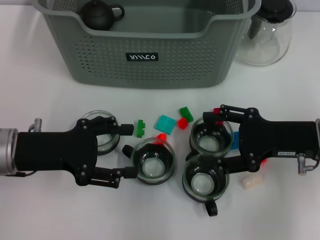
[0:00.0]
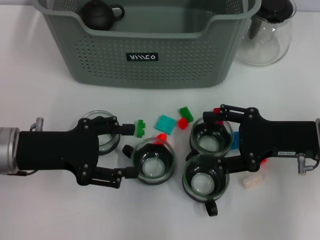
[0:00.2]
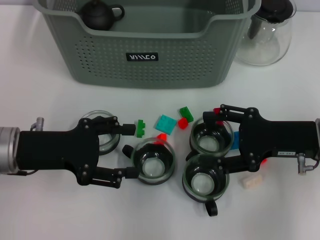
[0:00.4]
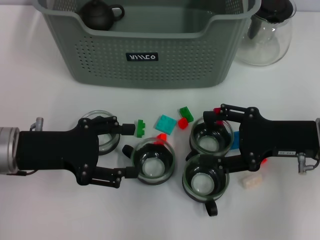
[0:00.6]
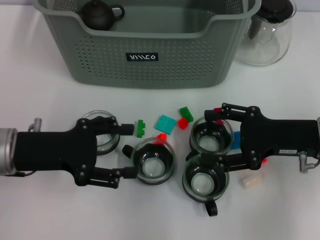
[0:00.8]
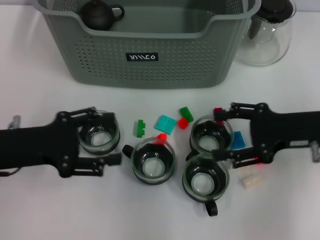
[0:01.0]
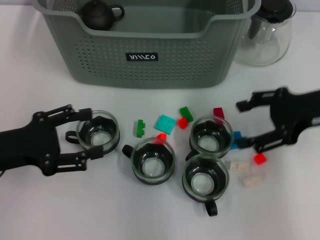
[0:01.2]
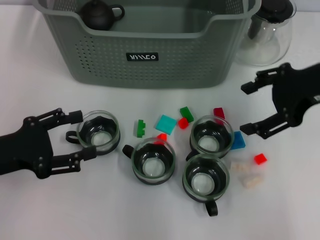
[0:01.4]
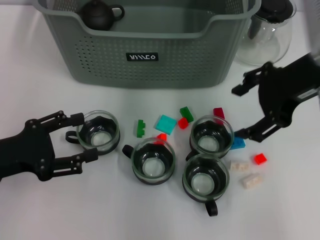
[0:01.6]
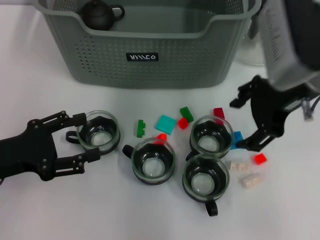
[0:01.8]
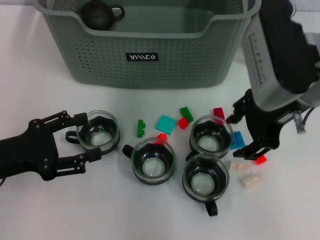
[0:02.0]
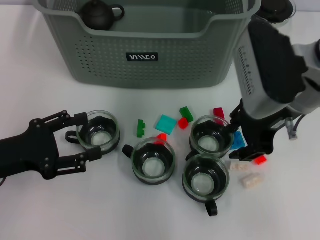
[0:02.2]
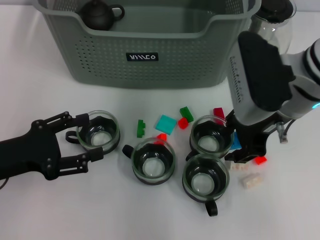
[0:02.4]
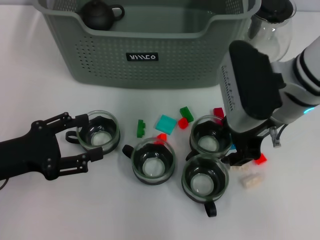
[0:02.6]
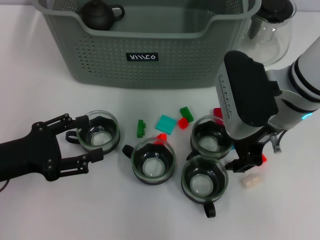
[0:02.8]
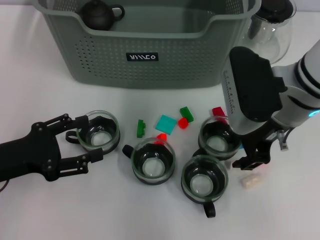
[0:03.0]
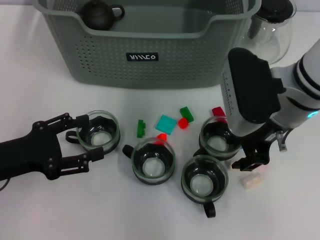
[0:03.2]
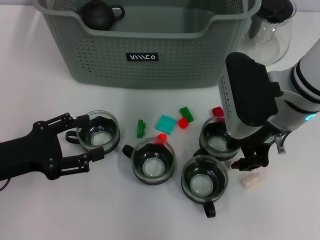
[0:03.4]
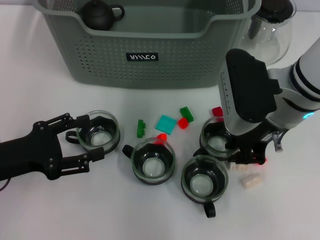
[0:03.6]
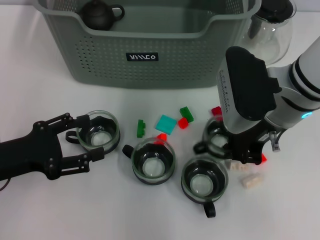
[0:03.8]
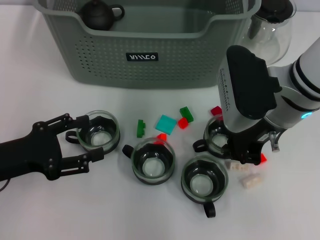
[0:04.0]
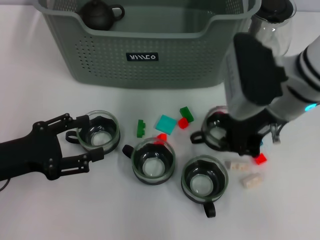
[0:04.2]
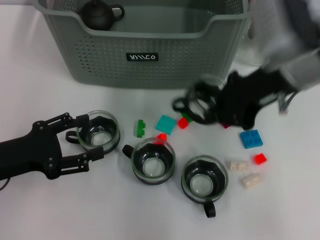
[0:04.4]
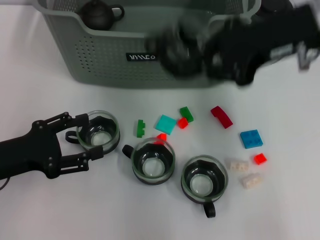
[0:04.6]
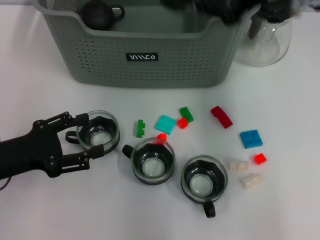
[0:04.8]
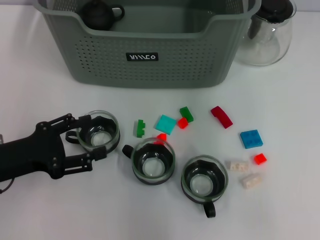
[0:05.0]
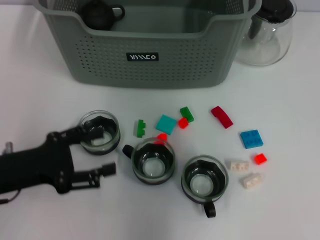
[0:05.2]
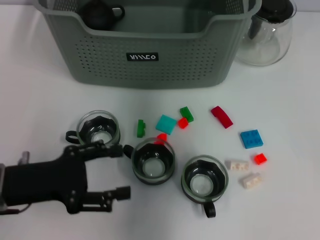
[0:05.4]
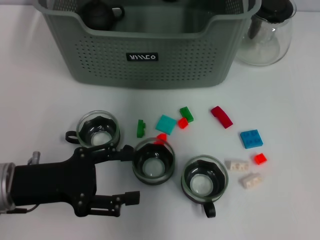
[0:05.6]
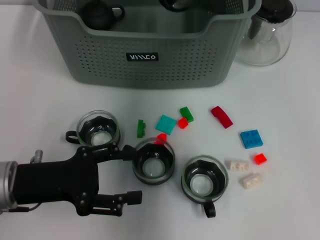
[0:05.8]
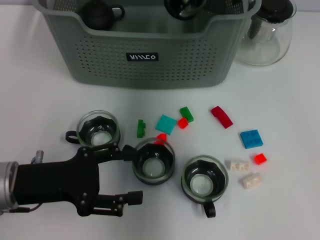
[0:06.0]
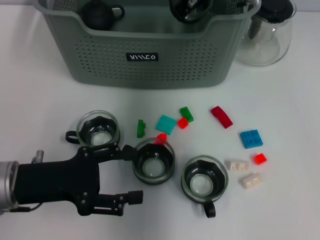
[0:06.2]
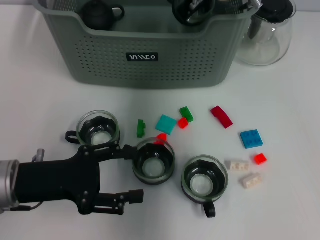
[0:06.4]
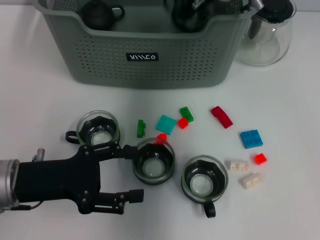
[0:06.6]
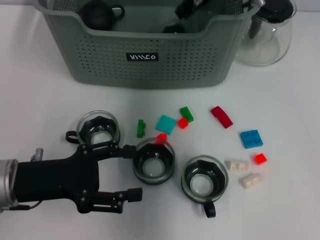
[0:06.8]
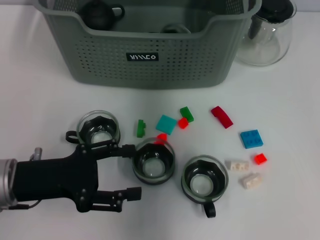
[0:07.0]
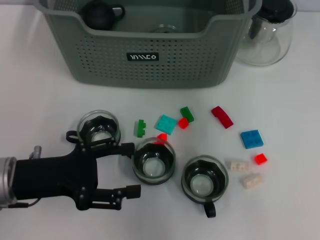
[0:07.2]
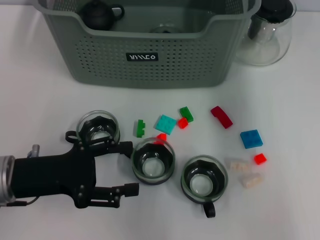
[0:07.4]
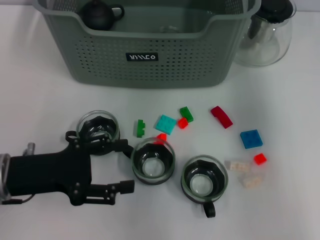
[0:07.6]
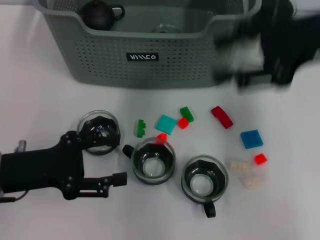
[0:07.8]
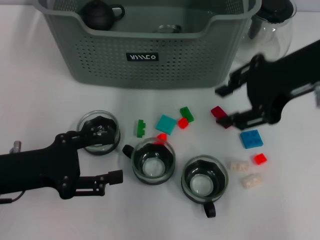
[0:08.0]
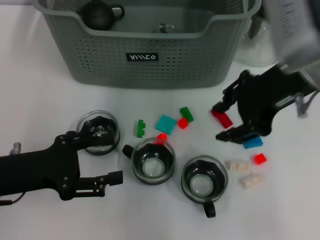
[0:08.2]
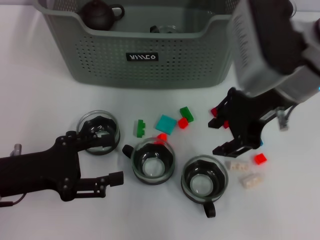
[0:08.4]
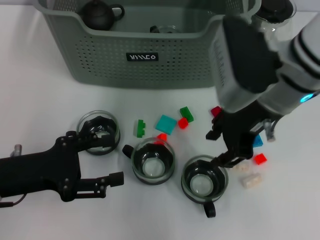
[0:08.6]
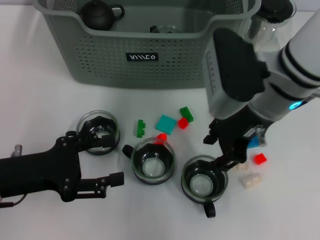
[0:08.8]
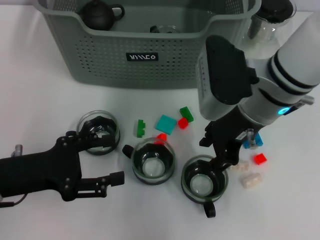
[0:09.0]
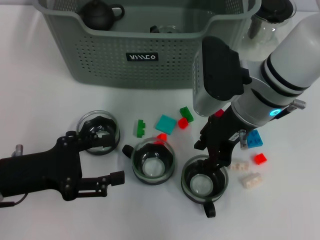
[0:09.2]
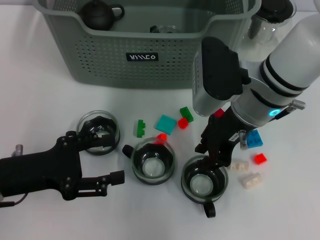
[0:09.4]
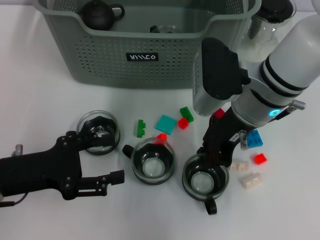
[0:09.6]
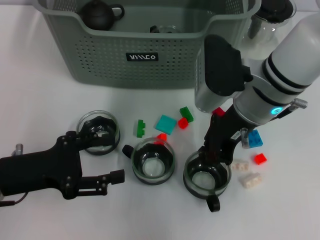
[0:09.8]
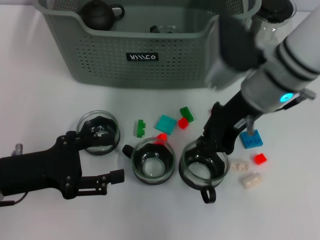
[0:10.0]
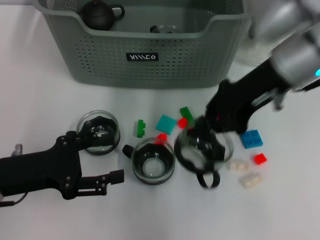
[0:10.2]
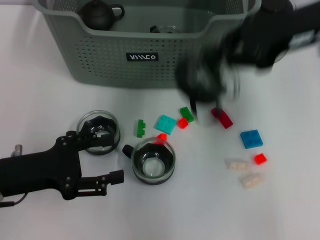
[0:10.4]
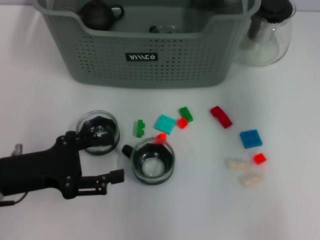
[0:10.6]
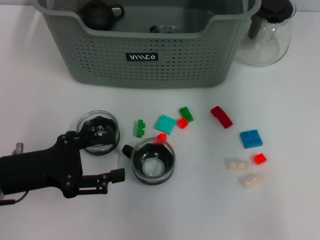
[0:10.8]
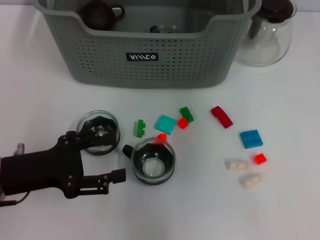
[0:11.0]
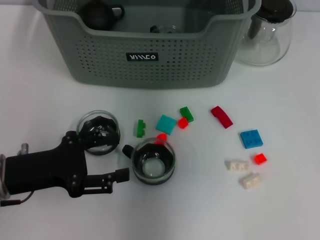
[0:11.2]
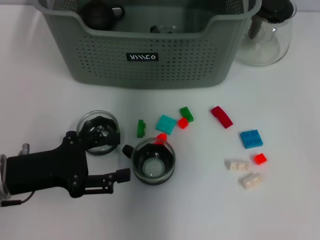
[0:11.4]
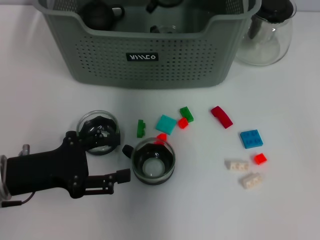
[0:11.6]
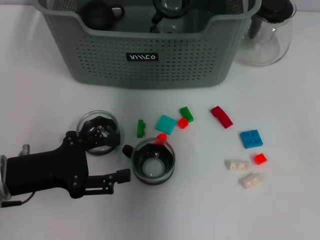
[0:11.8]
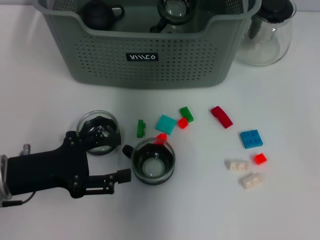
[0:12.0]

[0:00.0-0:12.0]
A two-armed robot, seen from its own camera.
Task of the whole recording: pick up the teacup on the table and place it into the storage bin, pick up the block on the table and place it into the storage bin.
Step, 0:00.0 to 0:03.8: Grasp the cup with right gripper.
Step, 0:04.0 to 0:06.8: Place the cup in the storage box with right gripper.
Step, 0:07.0 to 0:09.6: Grasp the cup with right gripper.
0:00.0 to 0:01.6: The right gripper heads upward, covering approximately 15 cm. The left gripper changes place by approximately 5 cm.
0:01.6 to 0:03.0: The right gripper shifts about 10 cm downward and to the left, and closes its fingers.
0:03.0 to 0:04.4: The right gripper changes place by approximately 5 cm, and closes.
0:04.4 to 0:06.0: The right gripper goes some 15 cm forward and to the left.
0:06.0 to 0:07.6: The right gripper goes some 20 cm to the right, backward and upward, and opens.
0:07.6 to 0:09.0: The right gripper moves downward and to the left, some 20 cm.
0:09.0 to 0:10.4: The right gripper goes roughly 15 cm to the right and upward, and closes up.
0:10.4 to 0:12.0: The right gripper travels to the left and forward by approximately 20 cm.

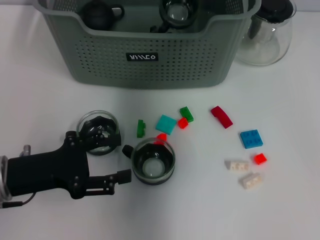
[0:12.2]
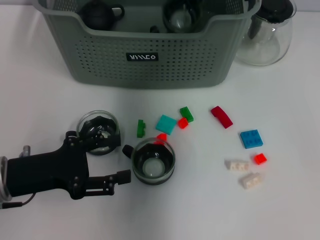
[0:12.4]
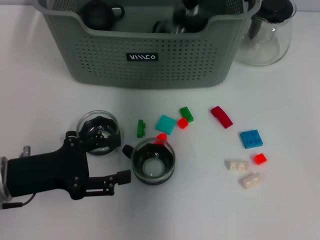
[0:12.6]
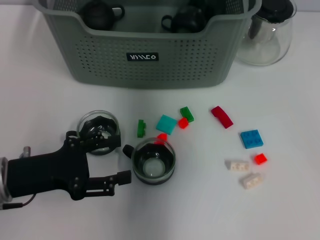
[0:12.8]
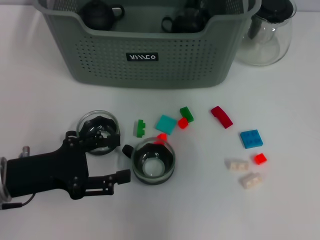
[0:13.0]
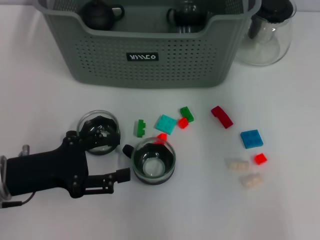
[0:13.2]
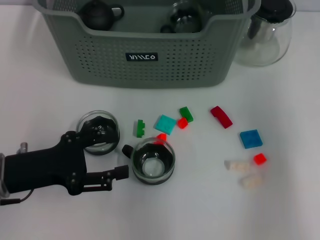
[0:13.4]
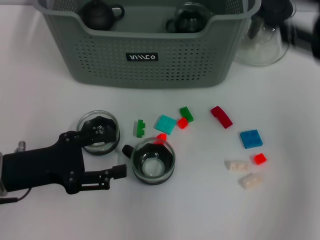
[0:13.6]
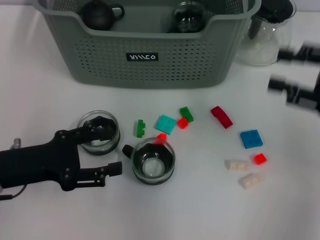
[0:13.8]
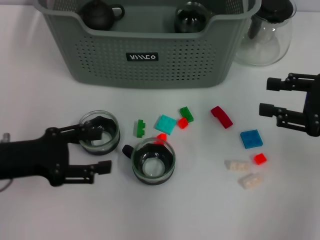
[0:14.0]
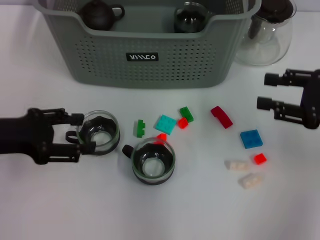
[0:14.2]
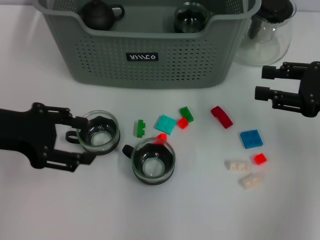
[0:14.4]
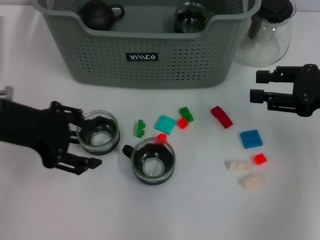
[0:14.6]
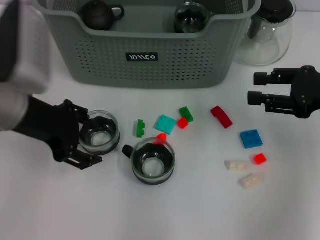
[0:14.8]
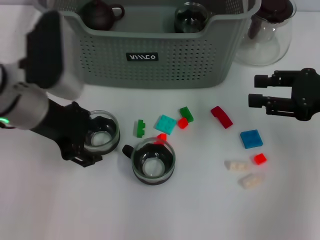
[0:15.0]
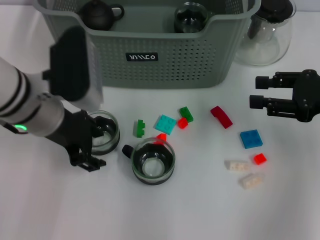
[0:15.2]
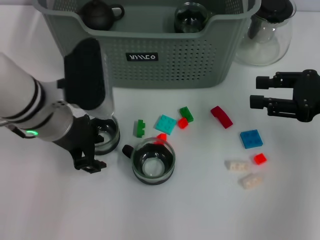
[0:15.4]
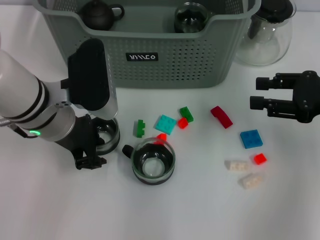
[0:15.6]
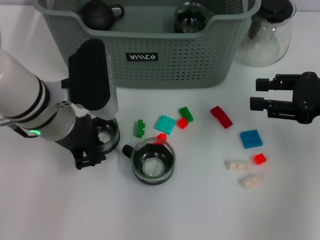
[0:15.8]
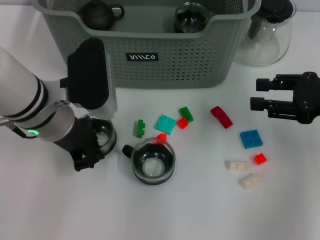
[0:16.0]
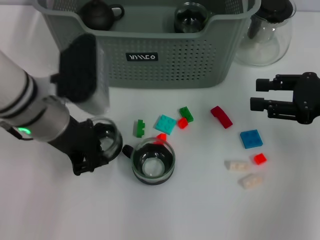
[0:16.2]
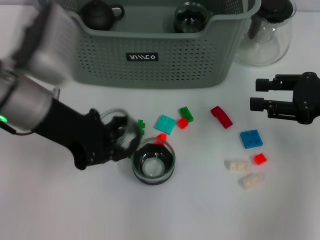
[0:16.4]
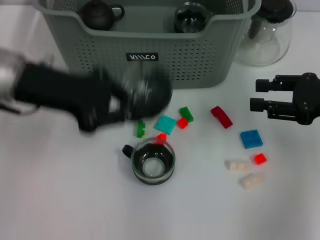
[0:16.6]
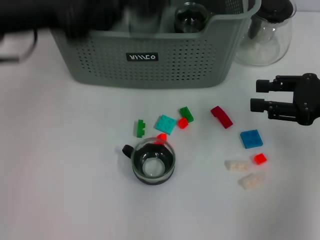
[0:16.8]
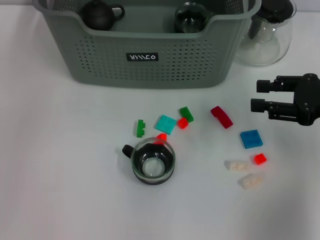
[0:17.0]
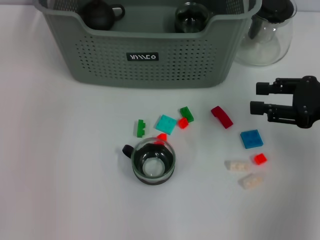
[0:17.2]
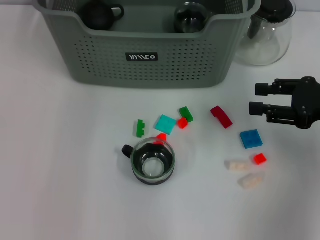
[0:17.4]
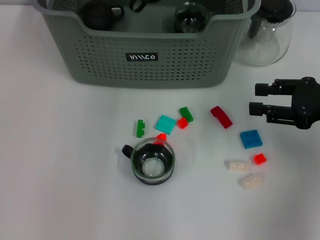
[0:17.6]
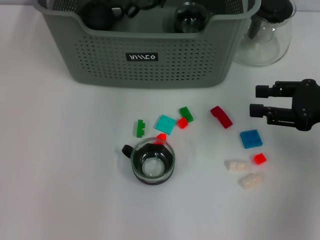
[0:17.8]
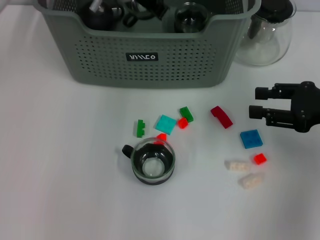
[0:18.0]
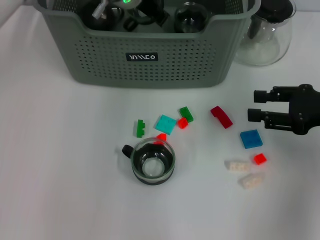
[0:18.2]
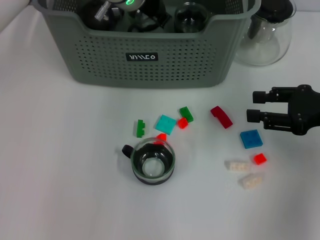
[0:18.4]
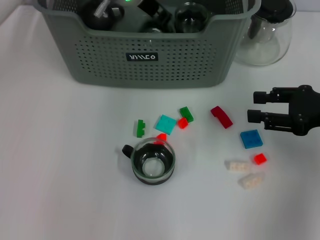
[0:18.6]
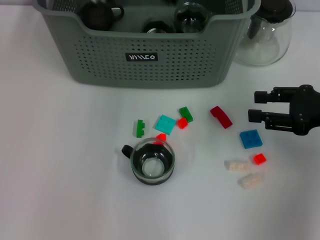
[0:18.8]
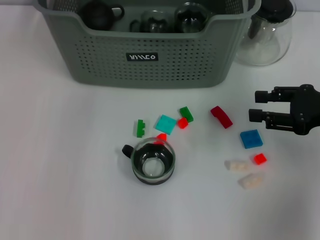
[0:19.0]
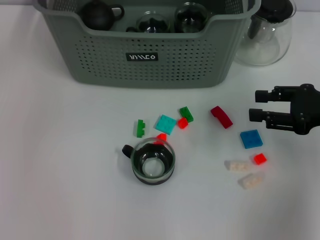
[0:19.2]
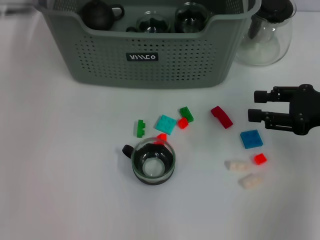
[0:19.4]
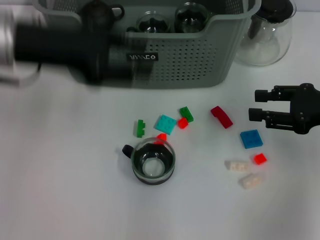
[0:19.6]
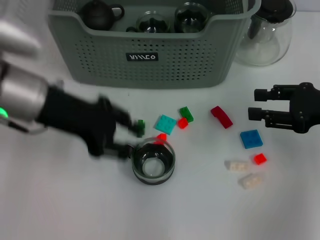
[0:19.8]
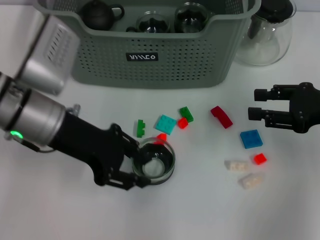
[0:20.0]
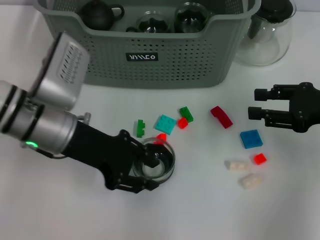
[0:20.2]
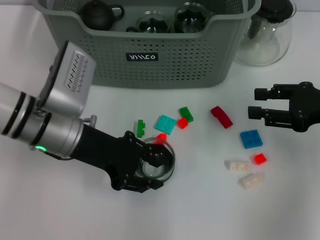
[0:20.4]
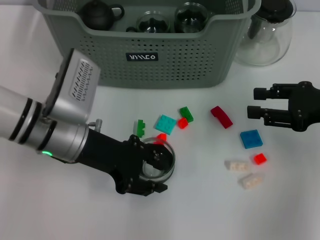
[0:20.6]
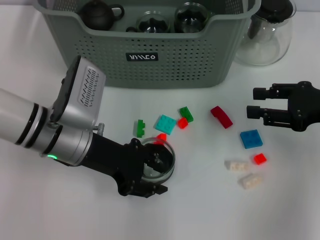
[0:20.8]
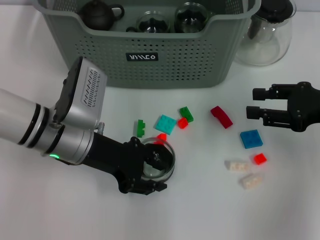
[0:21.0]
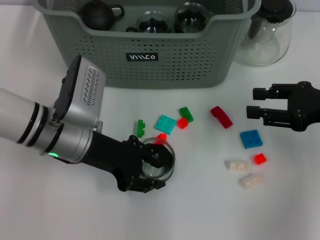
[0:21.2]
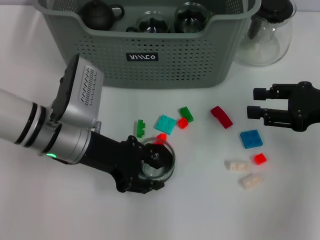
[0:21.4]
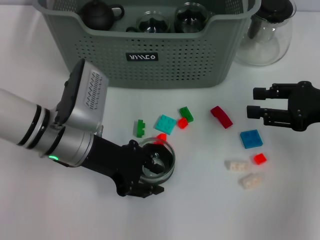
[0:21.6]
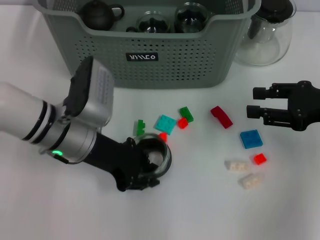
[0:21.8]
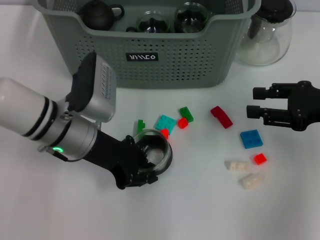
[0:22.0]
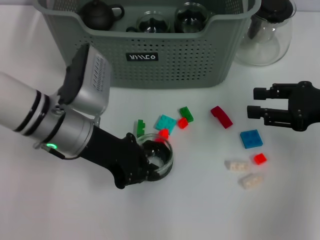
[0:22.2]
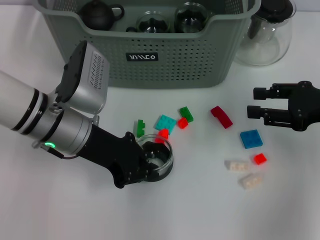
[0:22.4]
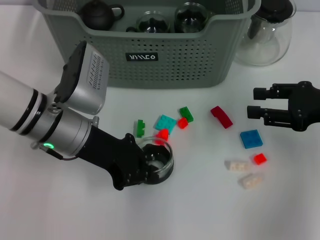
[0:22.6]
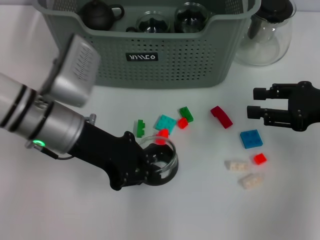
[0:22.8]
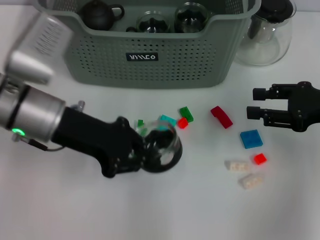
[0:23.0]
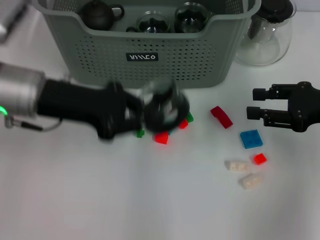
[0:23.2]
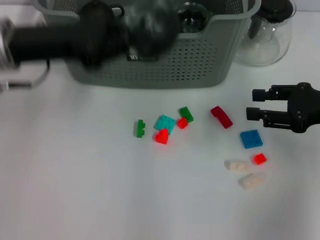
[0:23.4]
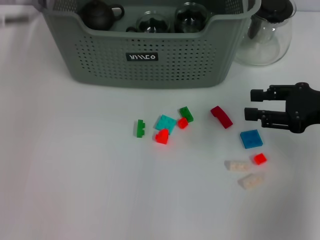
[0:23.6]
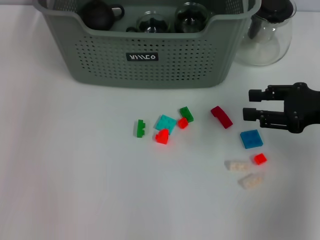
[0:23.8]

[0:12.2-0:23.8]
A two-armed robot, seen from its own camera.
Task of the whole recording: pick up the teacup on the table and place it into the storage bin, pick up the block on the table and place it into the storage bin.
Step, 0:13.0 to 0:15.8: Grasp the cup with left gripper.
Step, 0:16.2 to 0:18.6: Place the cup in the storage box with left gripper.
Step, 0:18.8 to 0:22.0: Grasp the cup with left gripper.
0:12.2 to 0:13.6: The right gripper goes about 30 cm to the right and backward, and opens up.
0:13.6 to 0:15.0: The right gripper is displaced downward by approximately 5 cm. Meanwhile the left gripper shifts about 15 cm upward, forward and to the right.
0:15.0 to 0:16.6: The left gripper closes.
0:16.6 to 0:18.0: The left gripper is displaced forward and to the right by some 20 cm.
0:18.0 to 0:19.4: The left gripper shifts some 20 cm to the left, backward and upward, and opens up.
0:19.4 to 0:21.0: The left gripper is displaced downward by some 20 cm.
0:21.0 to 0:22.4: The left gripper closes.
0:22.4 to 0:23.8: The left gripper shifts about 20 cm upward and forward.
